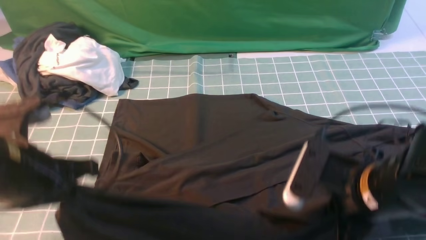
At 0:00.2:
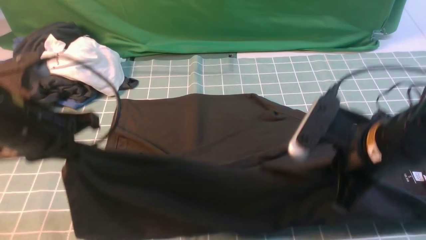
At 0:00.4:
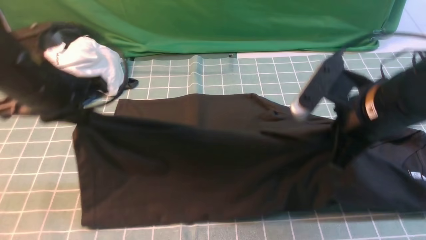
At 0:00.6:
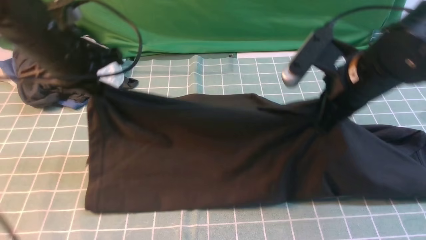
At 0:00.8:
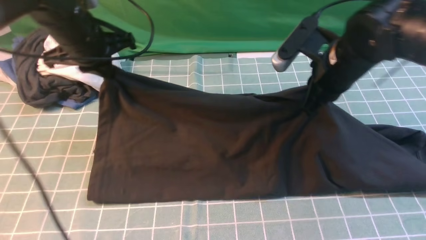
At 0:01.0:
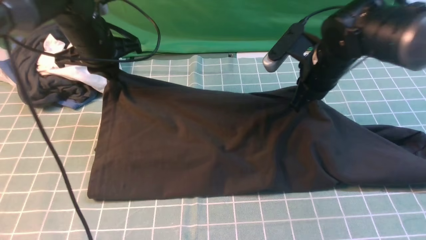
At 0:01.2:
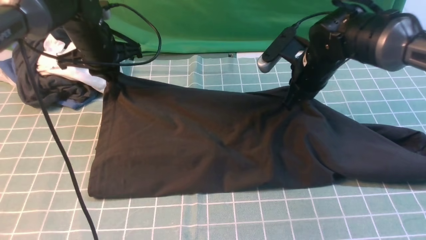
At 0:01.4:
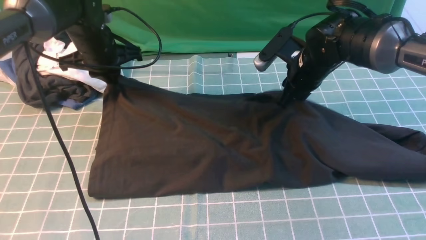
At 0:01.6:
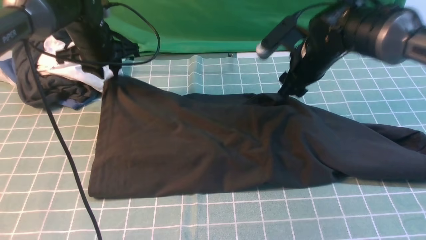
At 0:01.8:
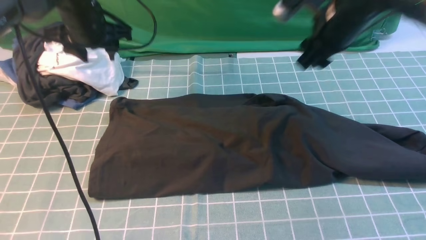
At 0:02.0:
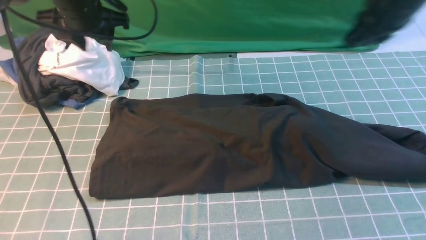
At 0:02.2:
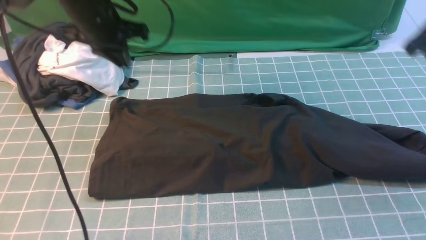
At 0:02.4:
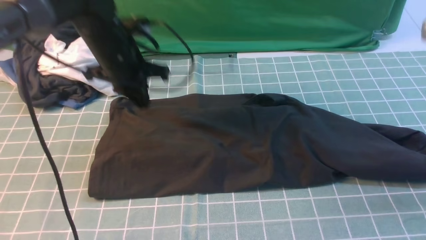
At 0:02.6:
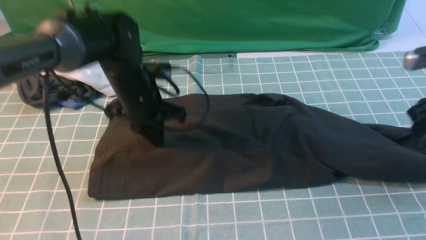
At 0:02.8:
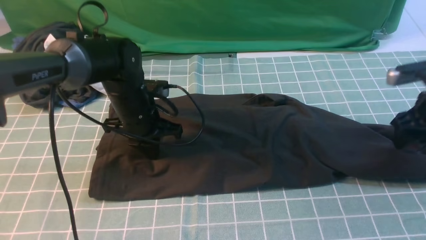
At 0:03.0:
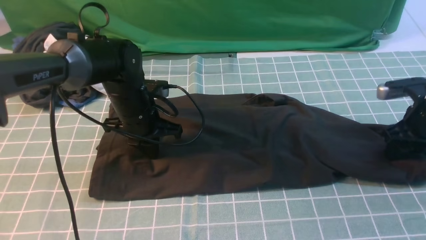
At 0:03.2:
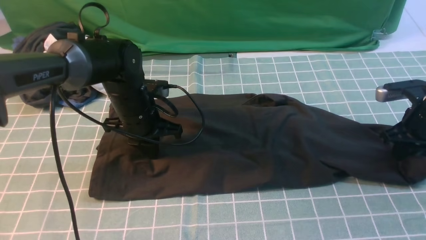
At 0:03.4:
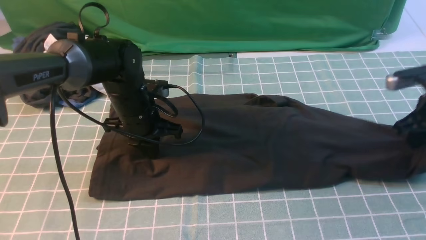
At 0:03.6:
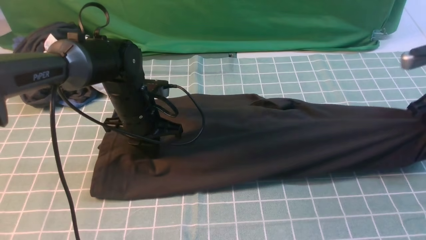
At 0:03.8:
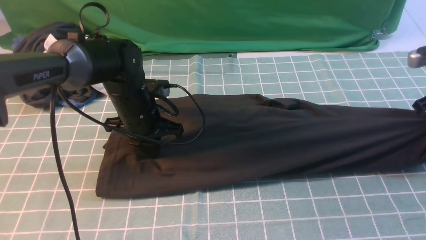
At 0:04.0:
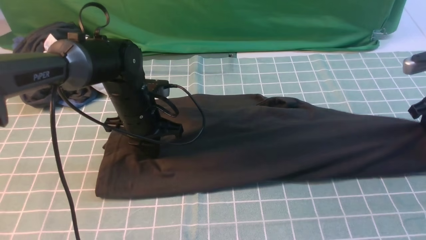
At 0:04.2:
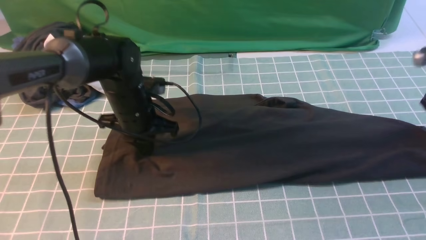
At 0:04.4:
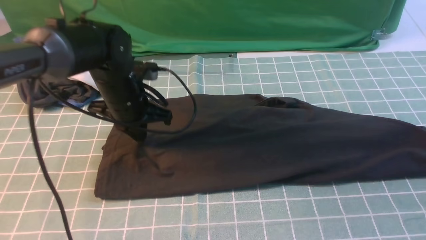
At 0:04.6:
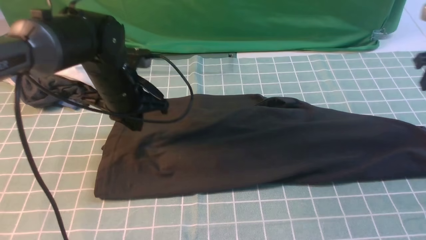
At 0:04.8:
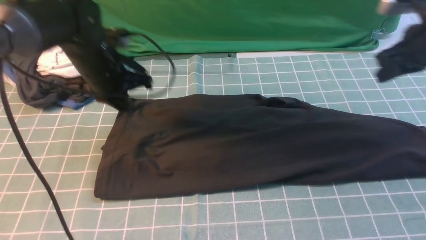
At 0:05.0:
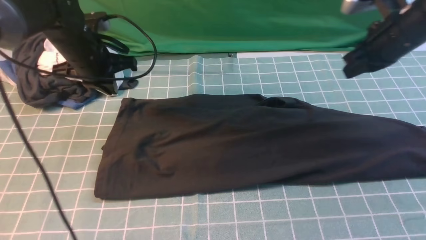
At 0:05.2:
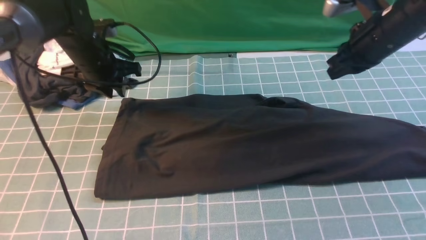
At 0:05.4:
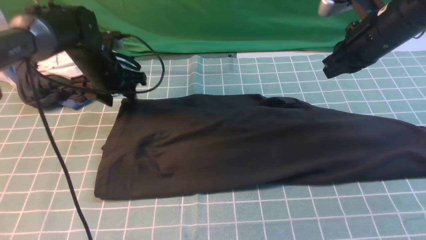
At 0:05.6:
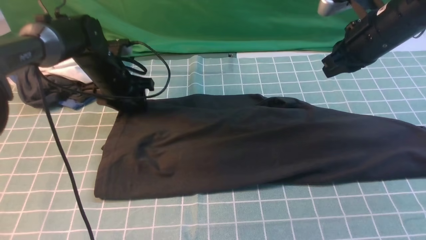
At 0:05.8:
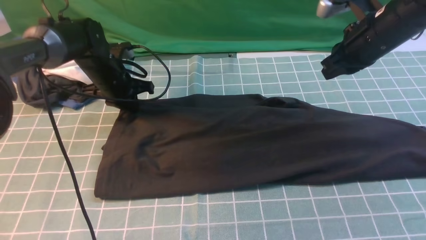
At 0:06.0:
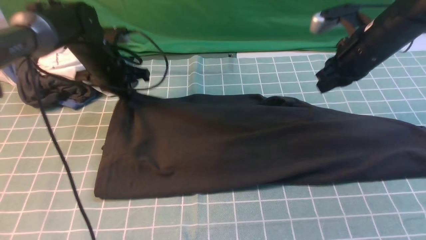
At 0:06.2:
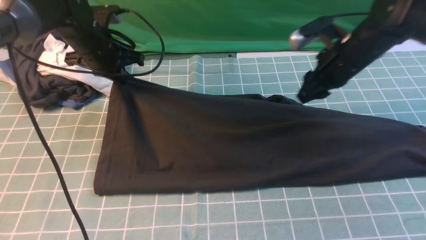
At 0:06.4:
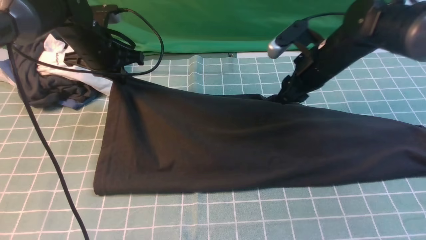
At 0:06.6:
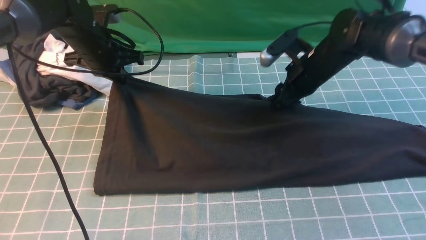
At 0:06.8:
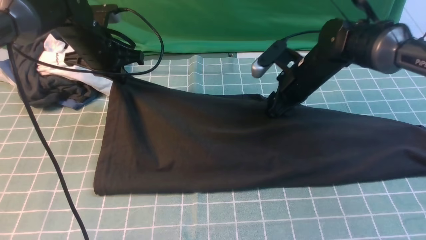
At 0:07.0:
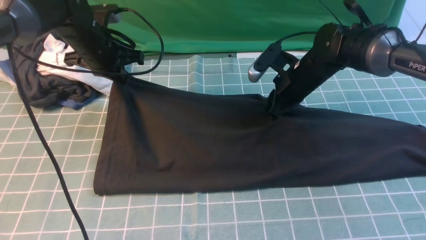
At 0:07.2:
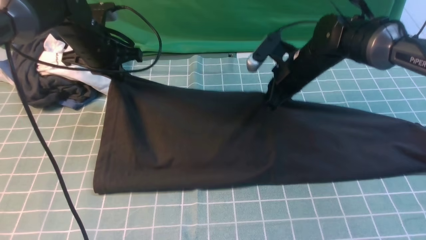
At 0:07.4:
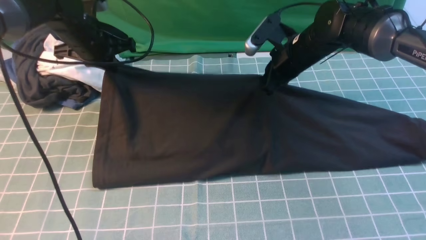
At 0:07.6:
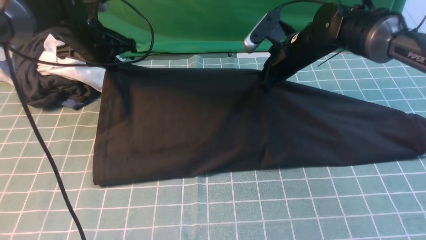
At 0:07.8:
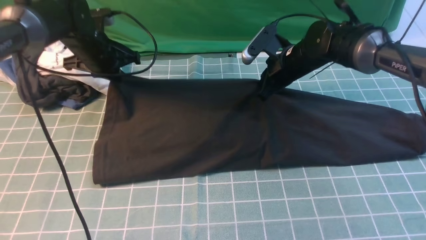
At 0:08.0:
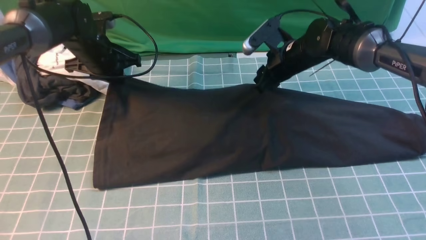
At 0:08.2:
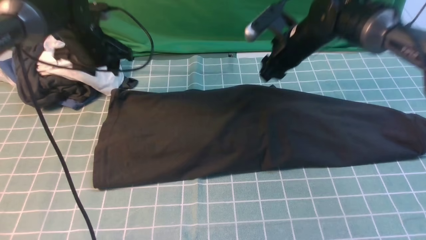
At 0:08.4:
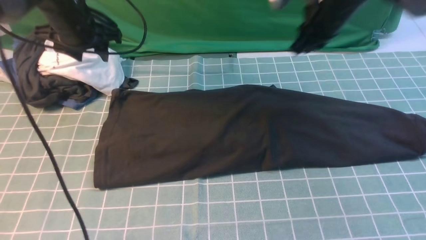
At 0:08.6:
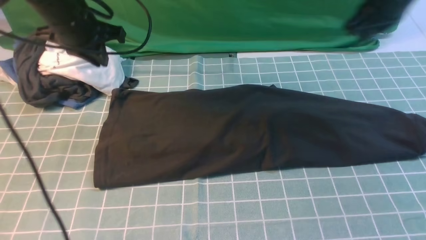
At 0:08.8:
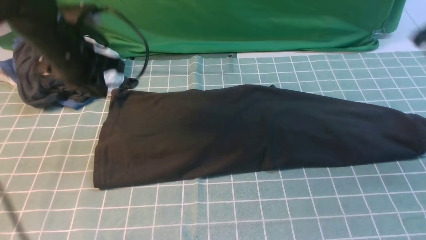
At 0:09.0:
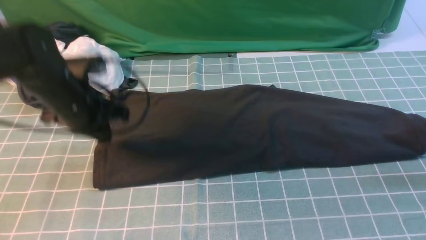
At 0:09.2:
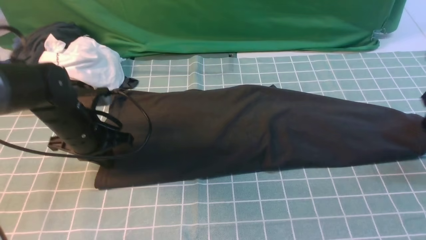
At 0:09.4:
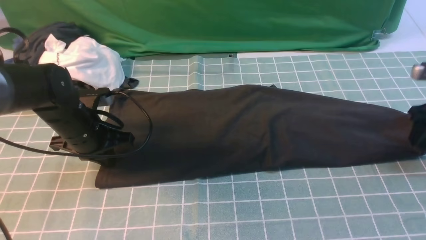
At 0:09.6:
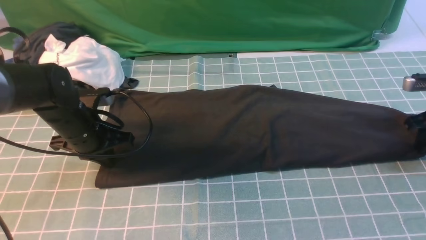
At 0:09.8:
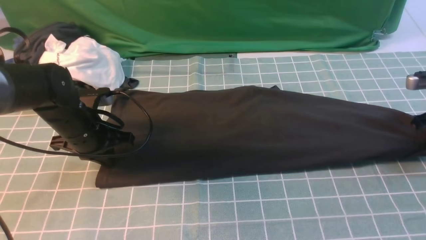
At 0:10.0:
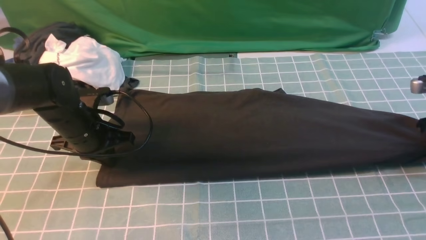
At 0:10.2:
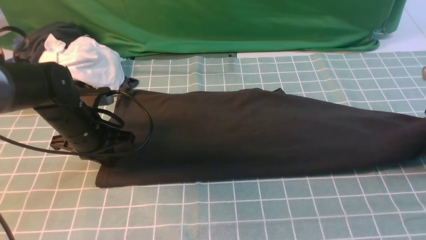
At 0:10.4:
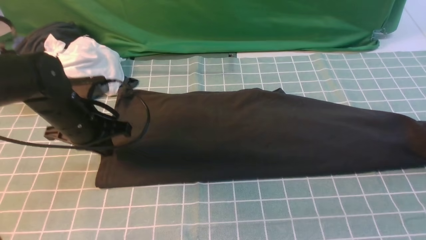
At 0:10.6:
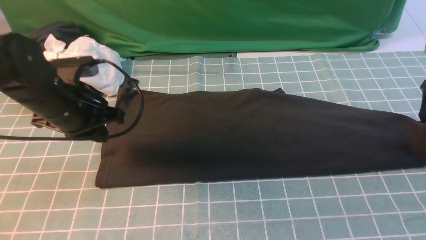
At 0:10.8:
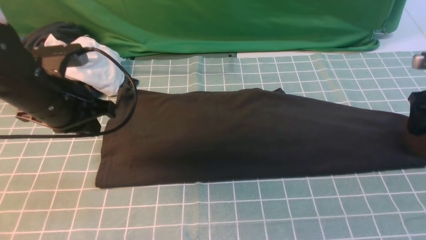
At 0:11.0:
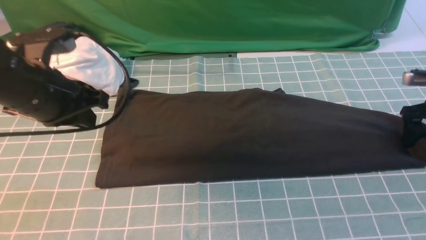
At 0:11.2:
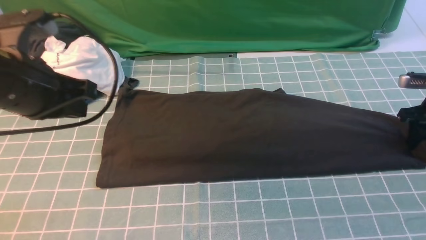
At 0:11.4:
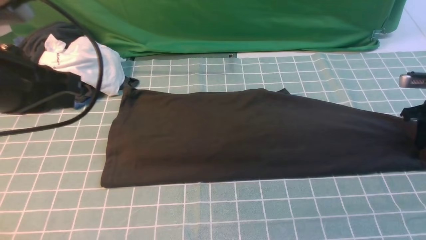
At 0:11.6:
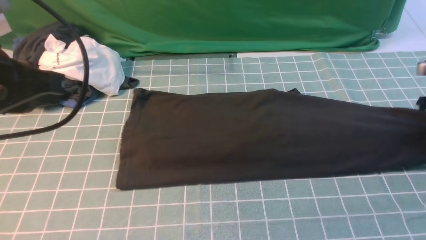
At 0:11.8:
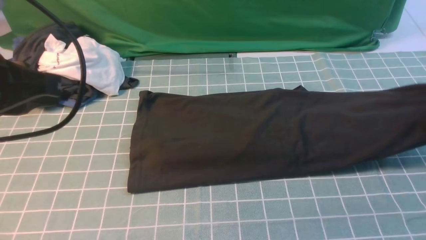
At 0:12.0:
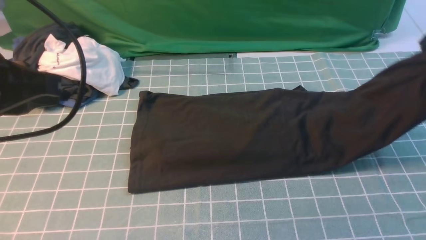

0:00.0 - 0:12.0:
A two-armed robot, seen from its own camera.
Step, 0:00.0 - 0:01.6: use both arms to drag the lower edge of the fabric forward and fold it over the upper edge.
Step, 0:01.8 - 0:10.0: use the right arm to clamp the right edge of the fabric.
0:00.0 - 0:01.6: The two grippers go some 25 cm forward. The right gripper opens its fingers. The left gripper opens.
0:01.6 - 0:03.0: The left gripper moves downward, backward and to the right, approximately 15 cm, and closes. The right gripper is displaced to the right and downward by approximately 20 cm, and closes, then opens again.
0:03.0 - 0:04.4: The right gripper is displaced upward by approximately 10 cm, and closes and opens again.
0:04.4 - 0:06.0: The right gripper is displaced to the left by roughly 15 cm, and closes up, while the left gripper heads forward and to the left, covering about 10 cm, and opens and closes again.
0:06.0 - 0:07.6: The right gripper moves to the left, downward and forward, about 10 cm, and opens and closes again.
0:07.6 - 0:09.0: The right gripper moves to the right and backward, some 25 cm, and opens up. The left gripper travels backward by roughly 10 cm, and opens and closes again.
0:09.0 - 0:10.4: The right gripper opens its fingers.
0:10.4 - 0:12.0: The right gripper is displaced upward and to the left by some 10 cm, and closes its fingers. The left gripper shifts about 20 cm upward and backward.

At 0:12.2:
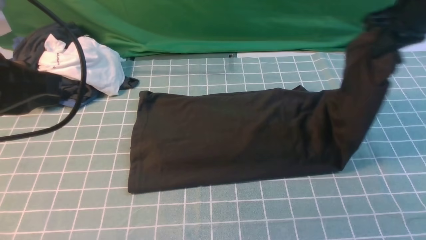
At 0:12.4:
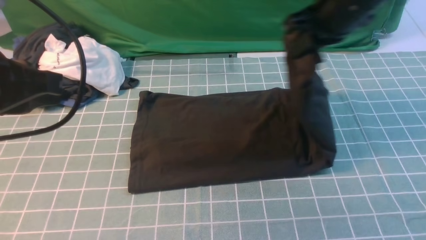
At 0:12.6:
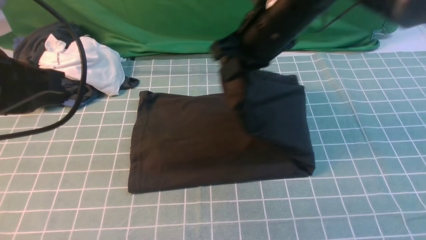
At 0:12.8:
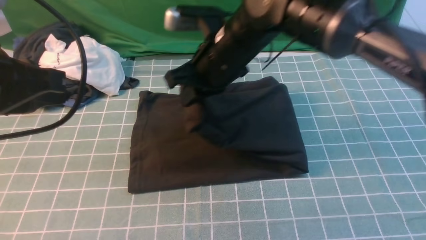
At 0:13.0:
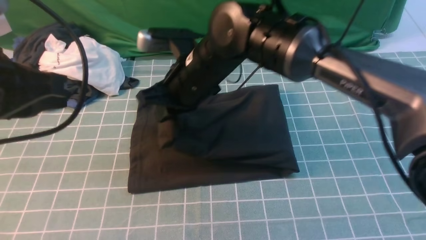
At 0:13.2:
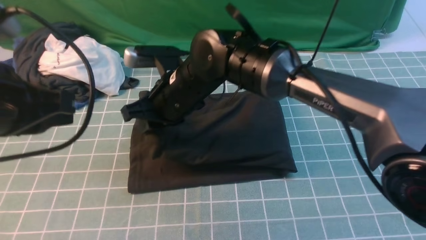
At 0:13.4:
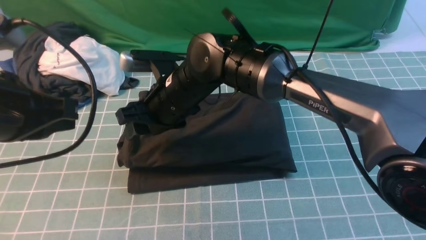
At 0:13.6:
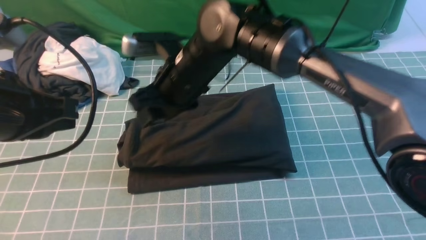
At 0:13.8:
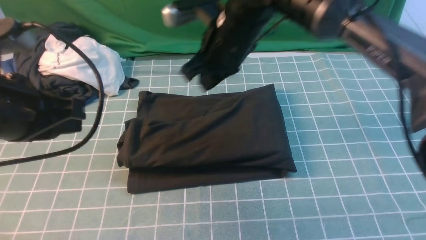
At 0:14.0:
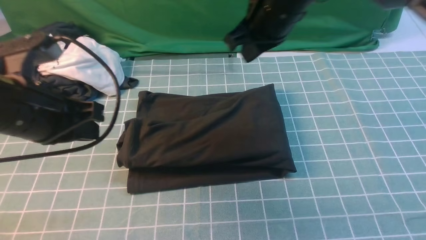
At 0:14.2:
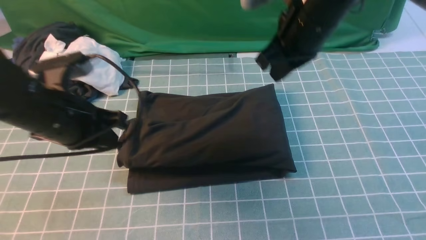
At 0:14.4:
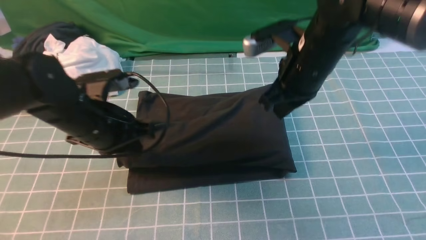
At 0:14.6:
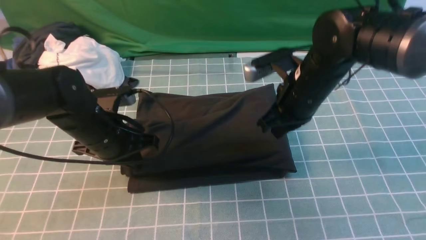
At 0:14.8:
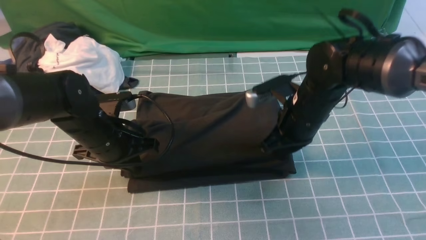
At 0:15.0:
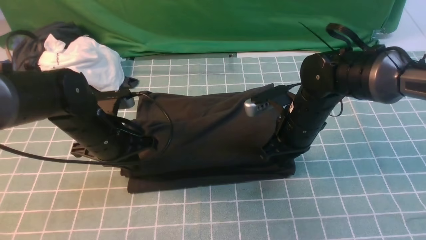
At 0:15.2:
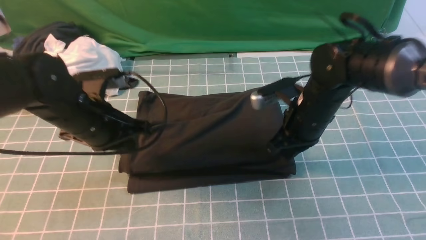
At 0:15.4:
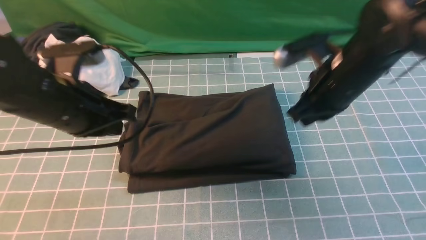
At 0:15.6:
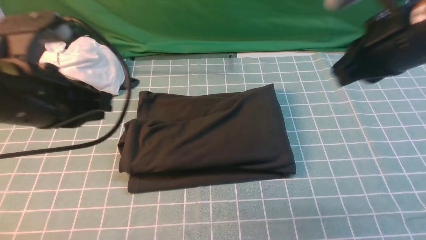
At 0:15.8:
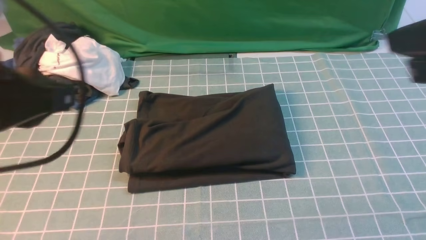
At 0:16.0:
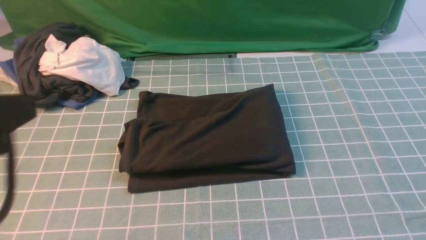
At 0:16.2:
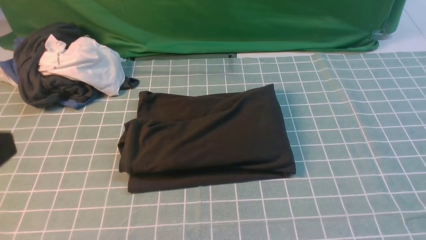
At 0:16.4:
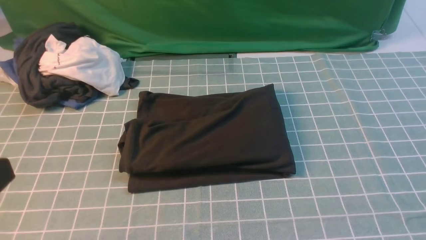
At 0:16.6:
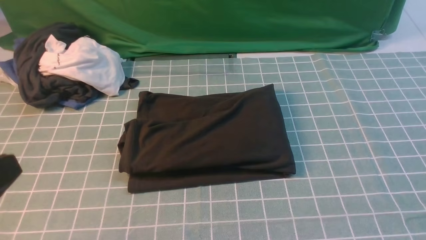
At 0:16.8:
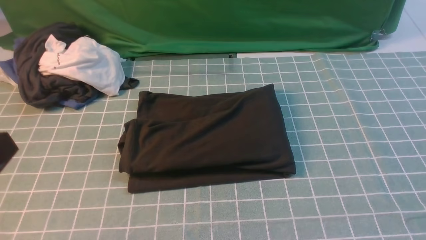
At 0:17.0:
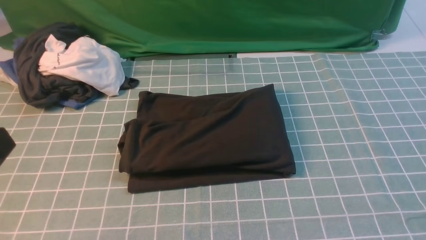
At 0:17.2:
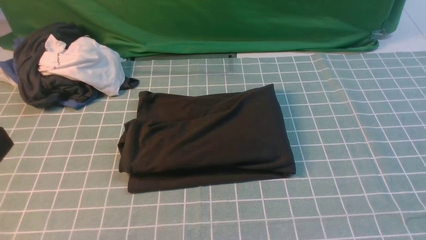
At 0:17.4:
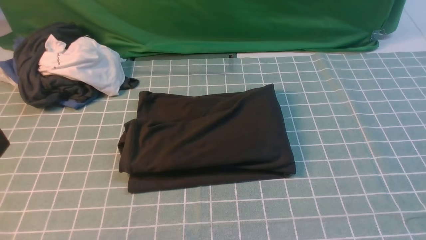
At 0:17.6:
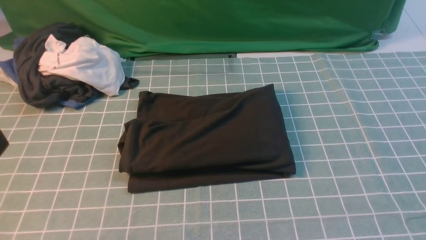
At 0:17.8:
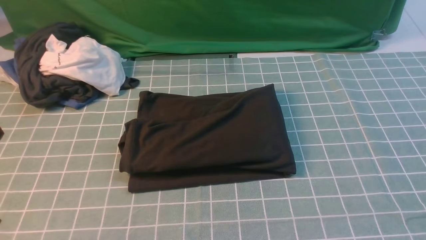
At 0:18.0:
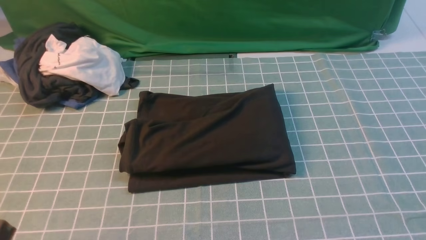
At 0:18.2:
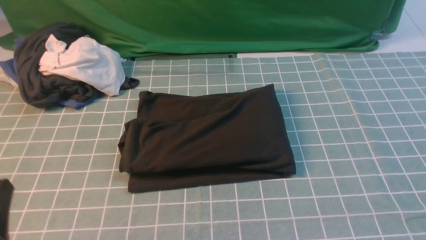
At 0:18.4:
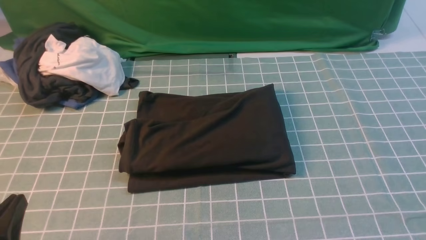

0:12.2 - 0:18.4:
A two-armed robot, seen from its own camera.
0:12.2 - 0:13.8: The left gripper changes place by some 5 cm. The right gripper travels to the left by approximately 20 cm, and opens and closes again.
0:13.8 - 0:15.4: The left gripper reaches roughly 15 cm downward, then returns. Meanwhile the right gripper moves to the right and backward, approximately 15 cm, and moves roughly 15 cm downward and comes back.
0:15.4 - 0:16.8: The right gripper goes approximately 35 cm backward and to the right. Meanwhile the left gripper heads backward, covering approximately 20 cm.
0:16.8 - 0:18.4: The left gripper travels downward by some 15 cm.
